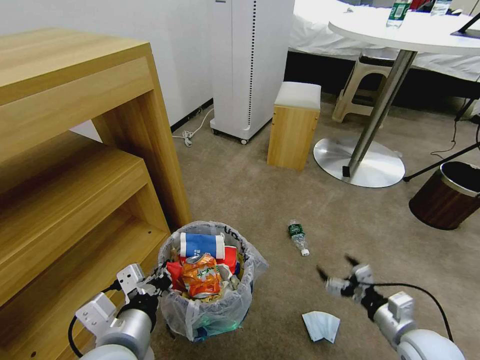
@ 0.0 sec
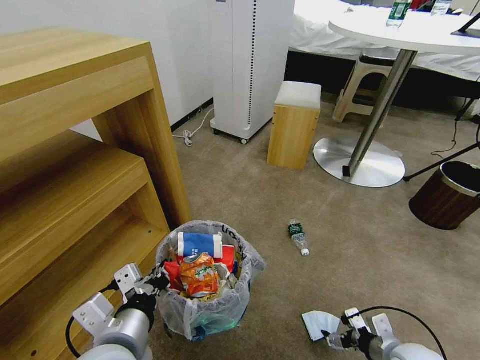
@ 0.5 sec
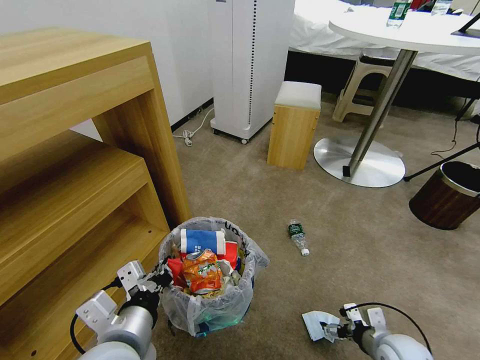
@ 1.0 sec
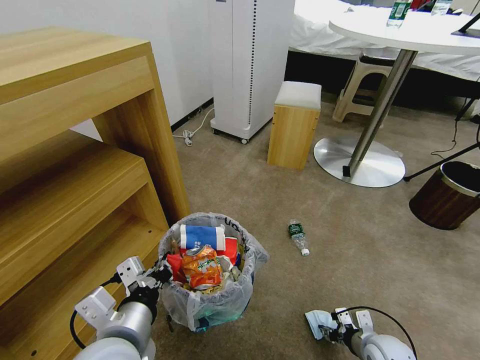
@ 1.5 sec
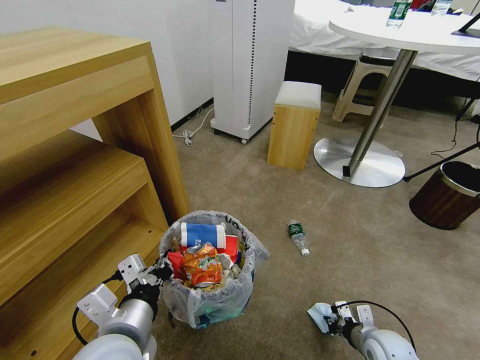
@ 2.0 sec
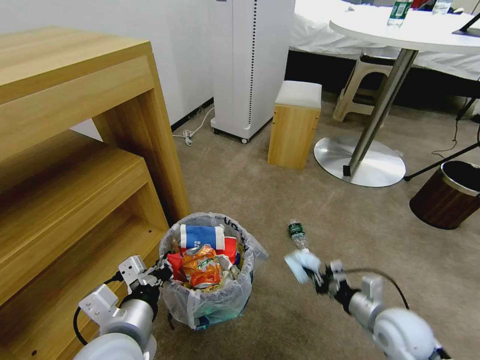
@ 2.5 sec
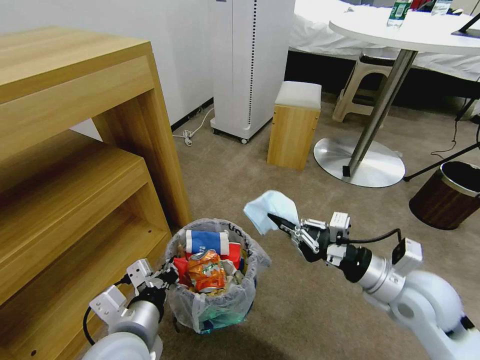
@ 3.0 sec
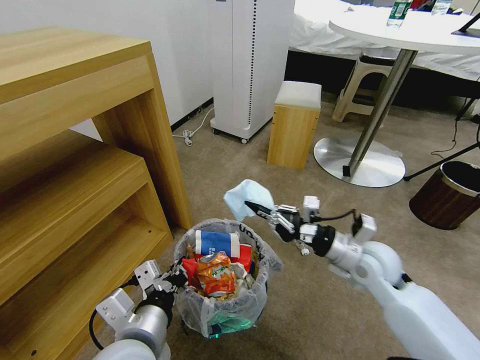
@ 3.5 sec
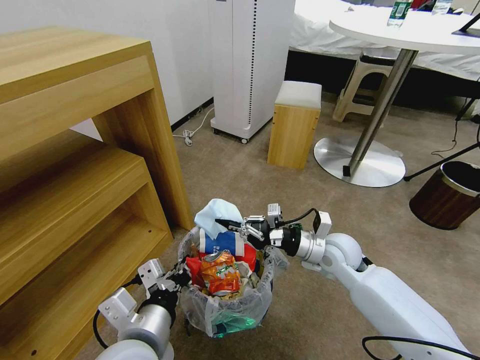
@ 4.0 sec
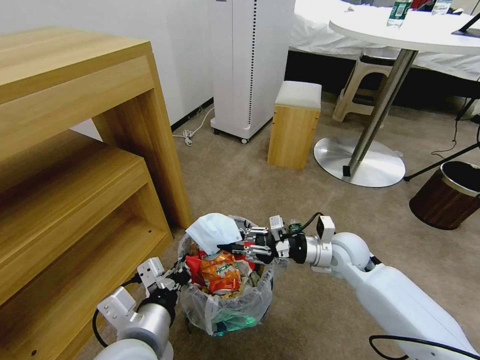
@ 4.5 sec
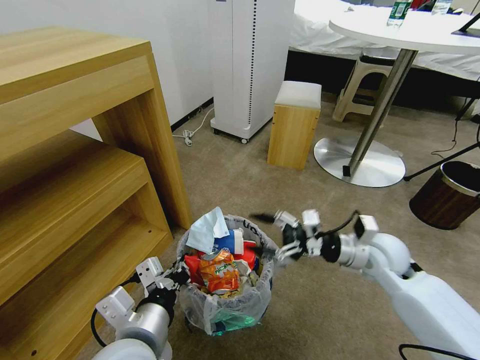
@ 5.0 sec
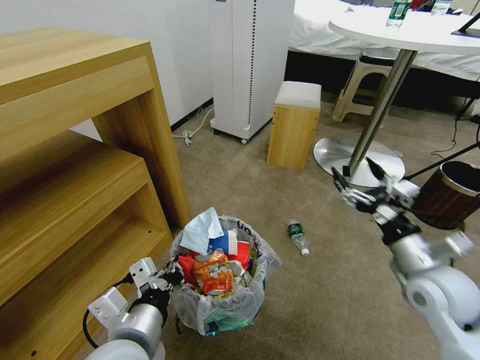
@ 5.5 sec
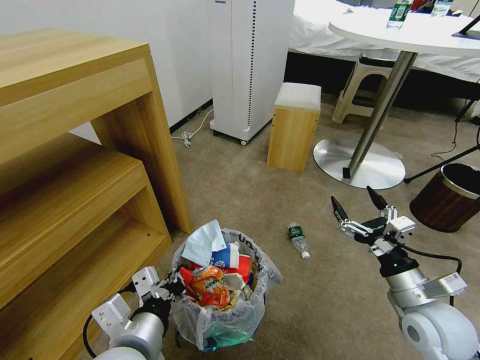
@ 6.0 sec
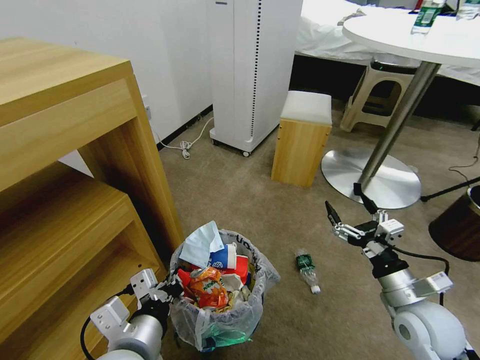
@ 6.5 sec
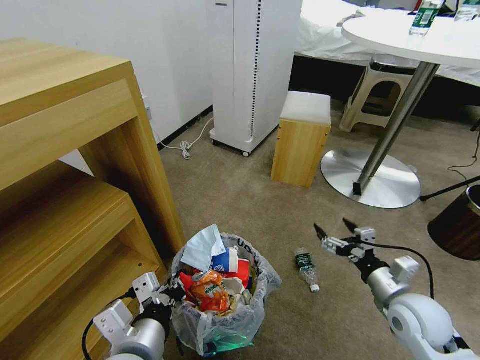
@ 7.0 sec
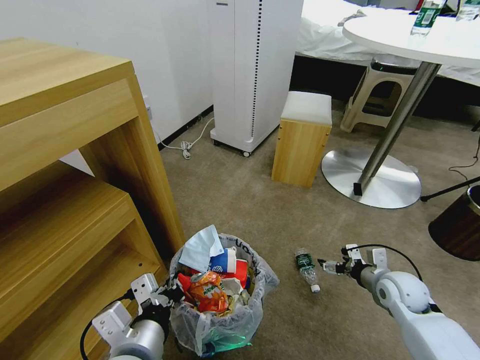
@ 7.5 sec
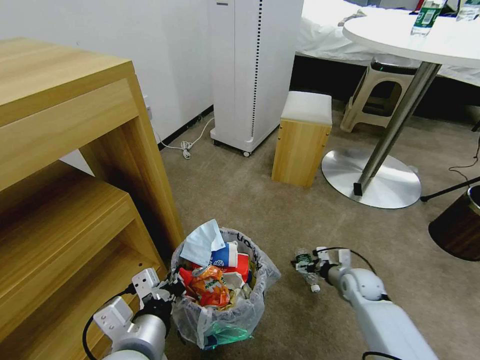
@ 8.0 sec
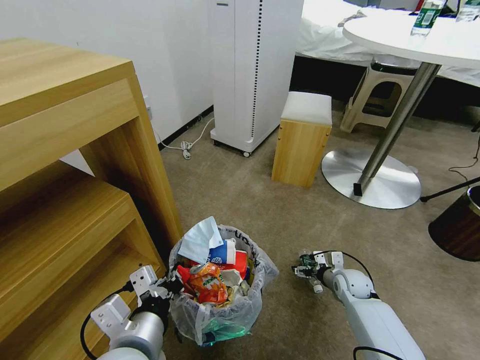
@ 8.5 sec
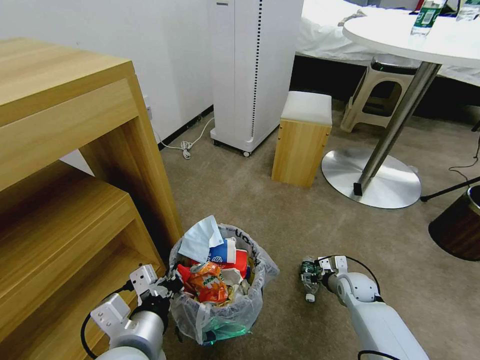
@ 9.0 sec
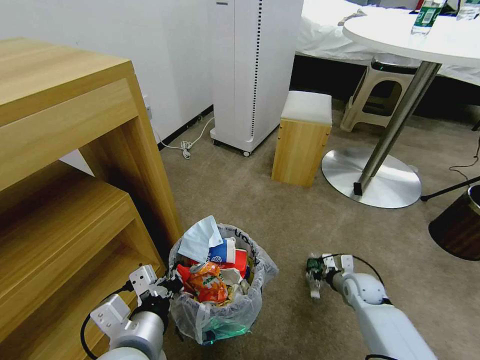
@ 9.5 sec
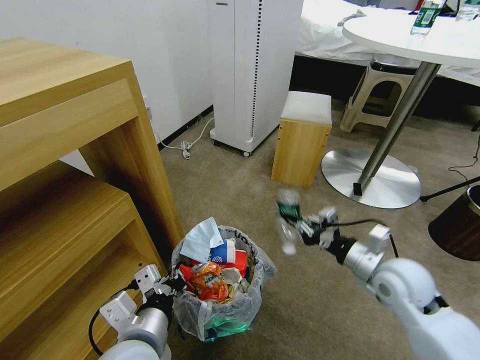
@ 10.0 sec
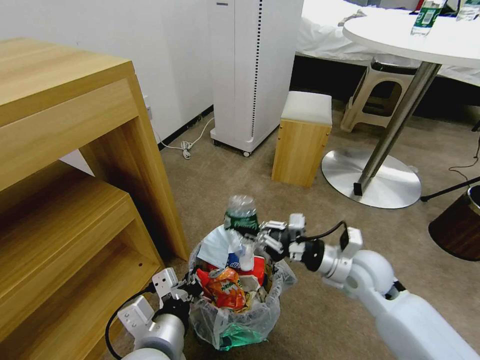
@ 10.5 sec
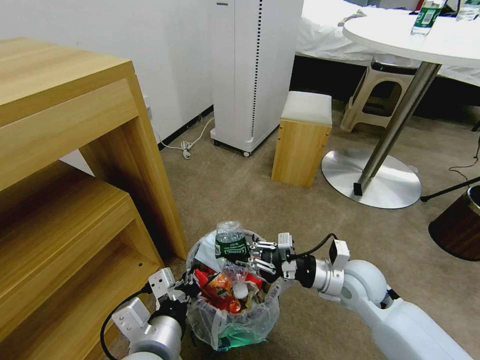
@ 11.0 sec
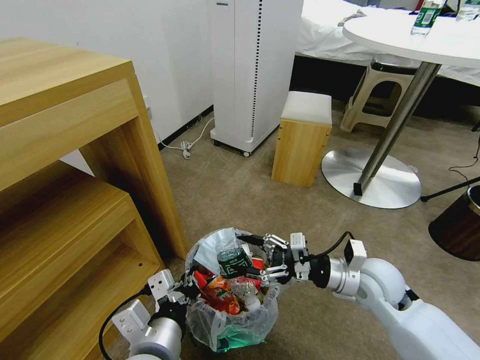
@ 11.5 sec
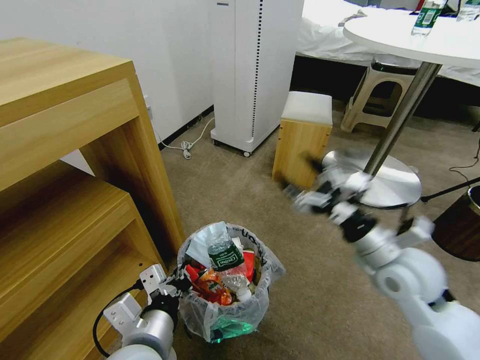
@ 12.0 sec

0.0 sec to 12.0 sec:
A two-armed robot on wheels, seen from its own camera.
Task of the whole recording: Pick up the trash bin and place the garbage on the floor into it.
0.0 sec to 2.0 sec: The right gripper heads downward, covering roughly 10 cm, and closes its fingers.
2.0 sec to 4.0 sec: The right gripper is displaced upward, forward and to the left by some 25 cm.
4.0 sec to 6.0 sec: The right gripper shifts some 20 cm backward and to the right, and opens.
6.0 sec to 8.0 sec: The right gripper moves downward and forward, approximately 25 cm.
8.0 sec to 10.0 sec: The right gripper moves upward, roughly 20 cm, and closes.
10.0 sec to 12.0 sec: The right gripper goes approximately 5 cm upward, and opens its fingers.

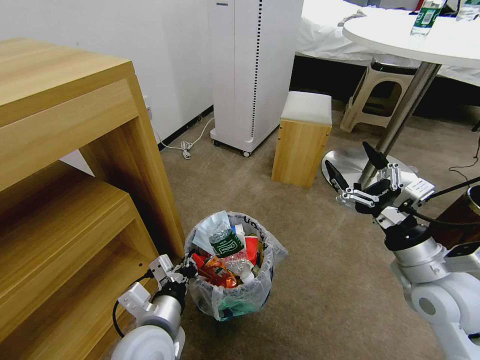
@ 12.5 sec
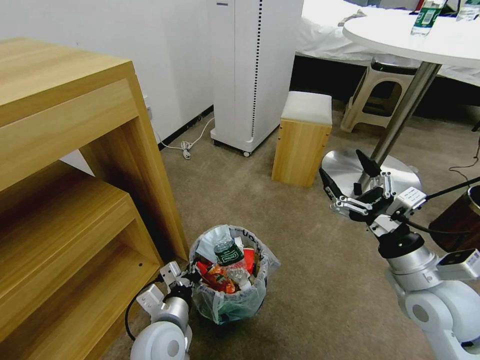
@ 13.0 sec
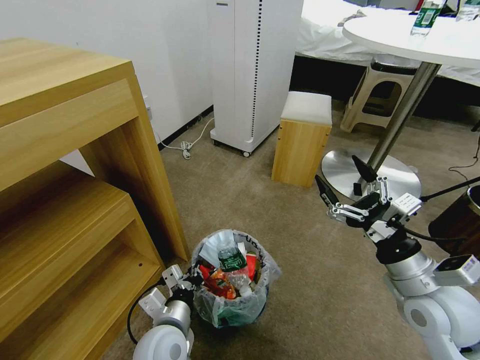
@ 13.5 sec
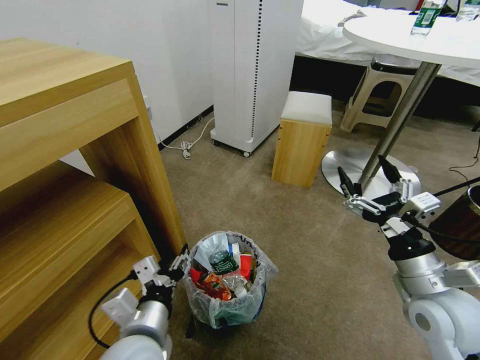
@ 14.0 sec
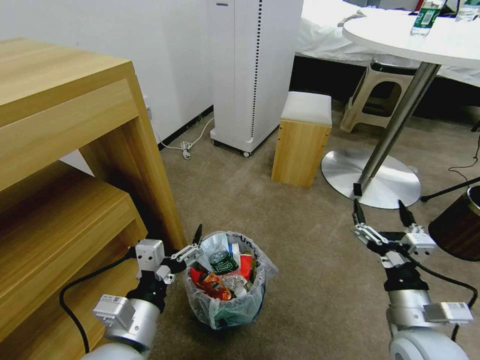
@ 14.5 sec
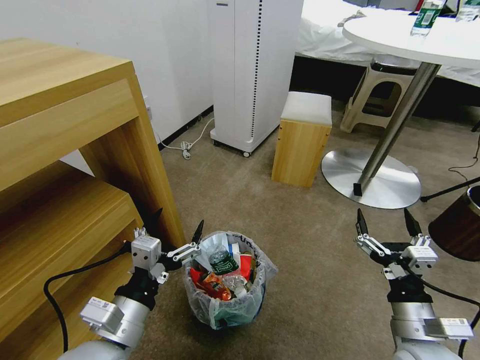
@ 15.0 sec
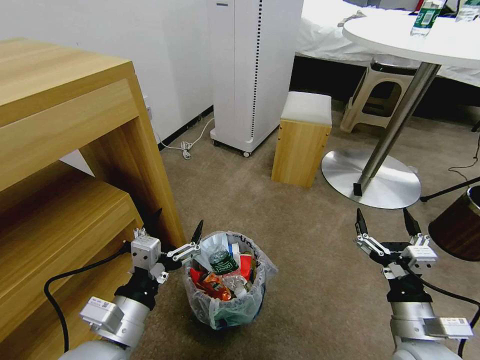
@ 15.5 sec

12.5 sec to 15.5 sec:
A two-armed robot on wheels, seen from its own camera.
Task of the whole recording: Pick up the trash bin and place the garbage on the floor into it.
12.5 sec to 14.0 sec: The left gripper opens.
14.0 sec to 15.5 sec: The right gripper heads downward and backward, covering about 10 cm; the left gripper heads upward, covering about 10 cm.

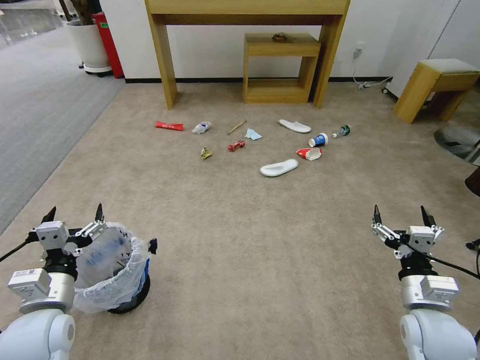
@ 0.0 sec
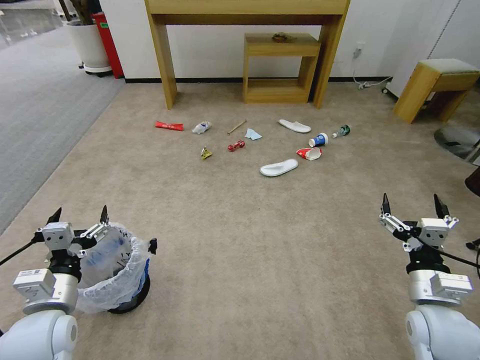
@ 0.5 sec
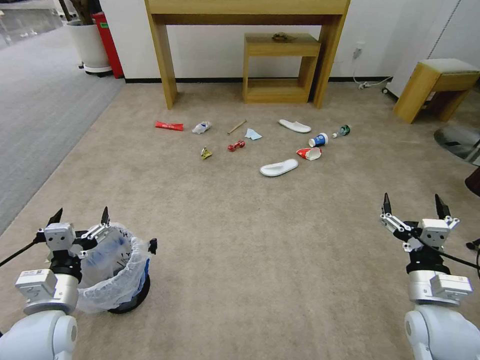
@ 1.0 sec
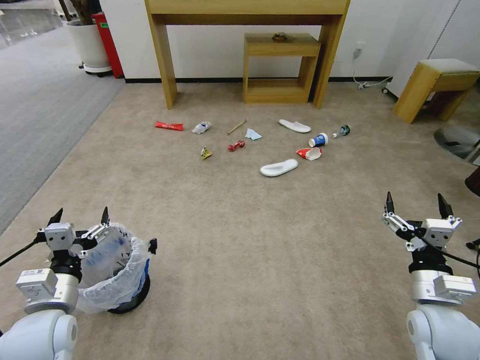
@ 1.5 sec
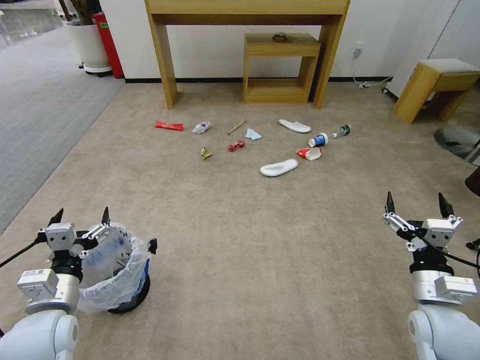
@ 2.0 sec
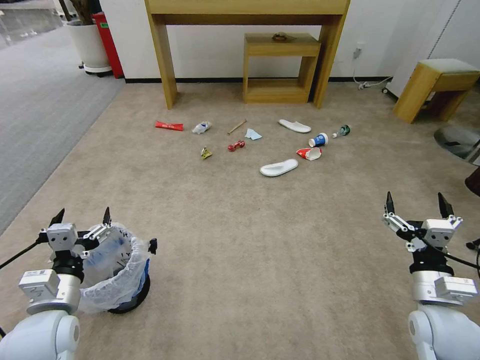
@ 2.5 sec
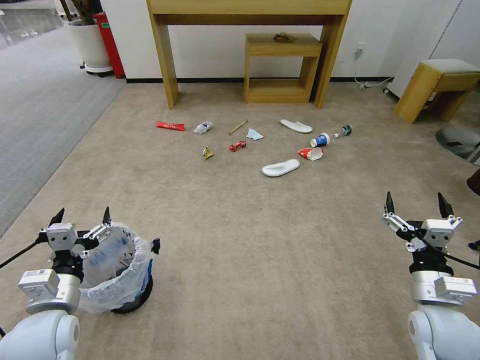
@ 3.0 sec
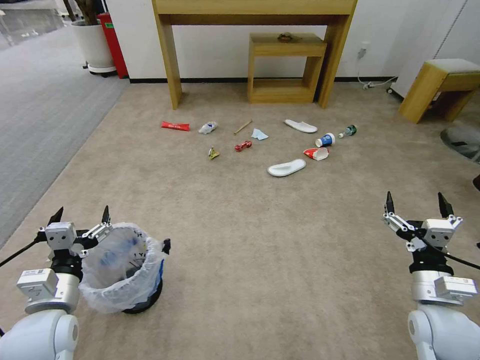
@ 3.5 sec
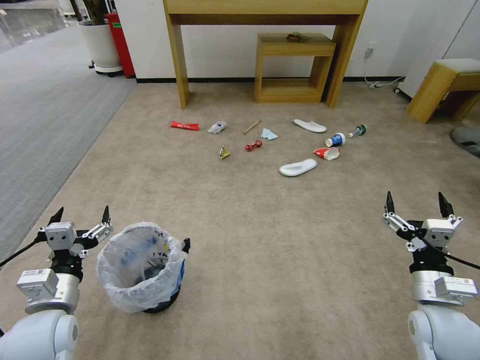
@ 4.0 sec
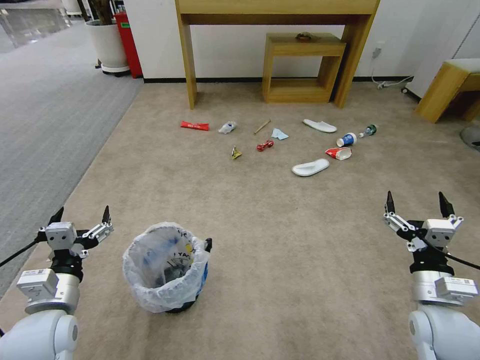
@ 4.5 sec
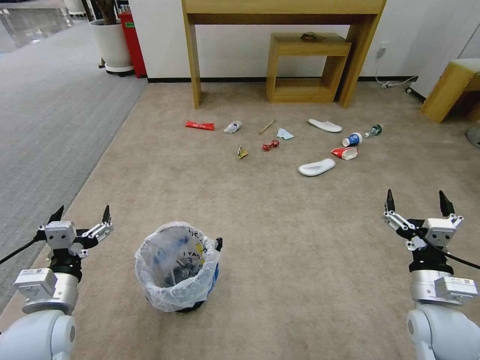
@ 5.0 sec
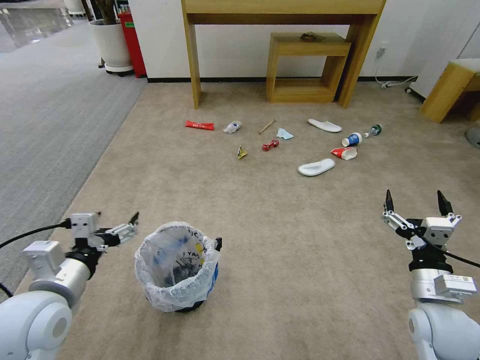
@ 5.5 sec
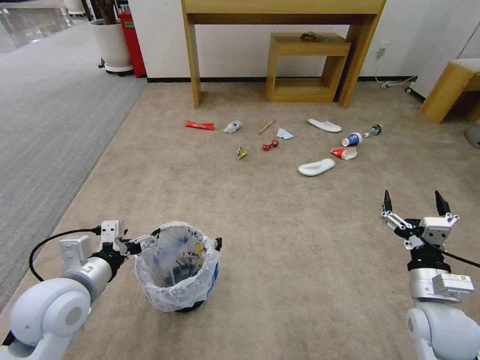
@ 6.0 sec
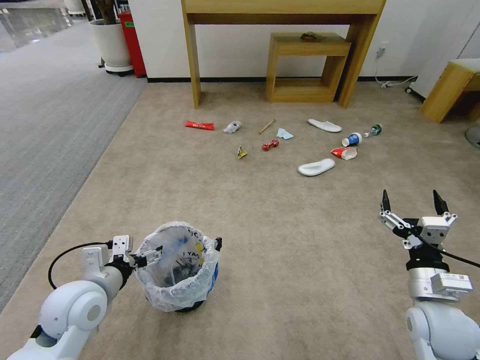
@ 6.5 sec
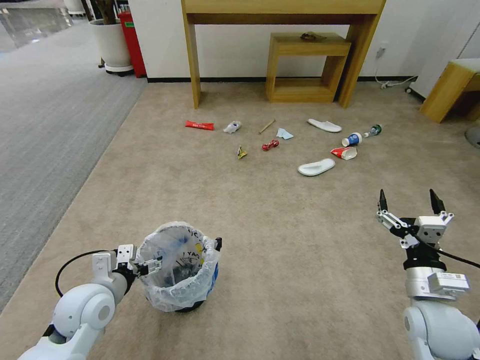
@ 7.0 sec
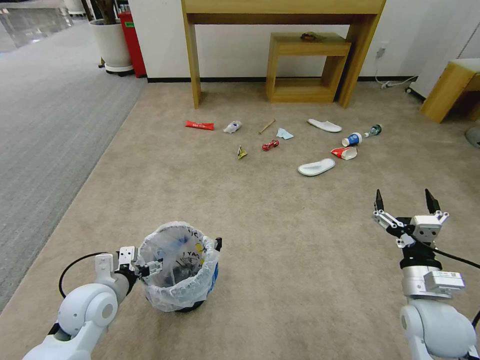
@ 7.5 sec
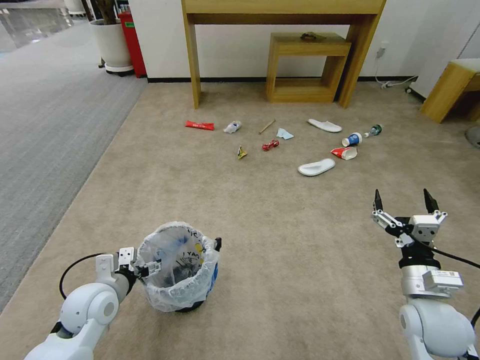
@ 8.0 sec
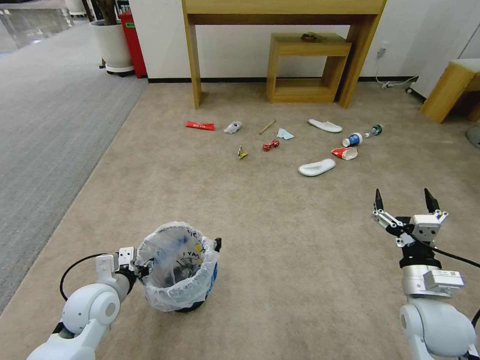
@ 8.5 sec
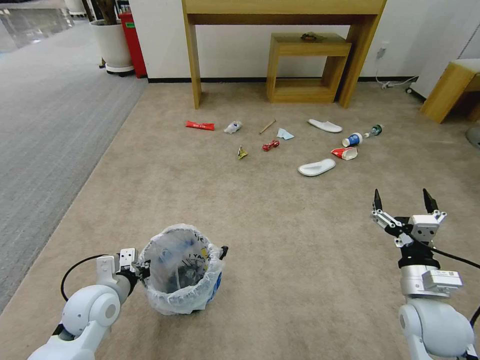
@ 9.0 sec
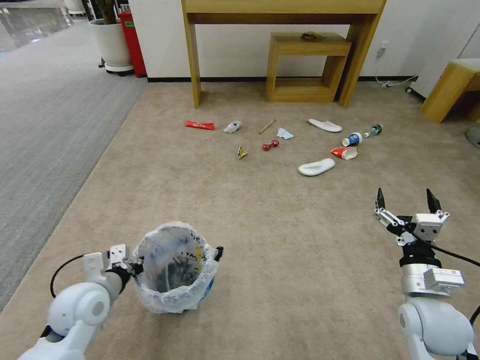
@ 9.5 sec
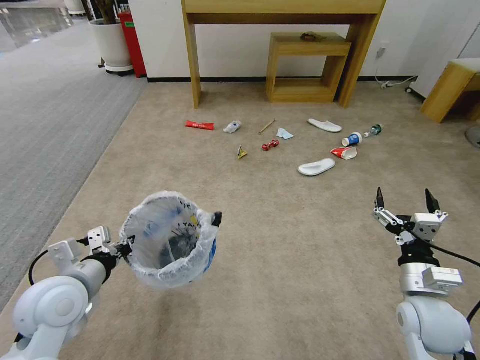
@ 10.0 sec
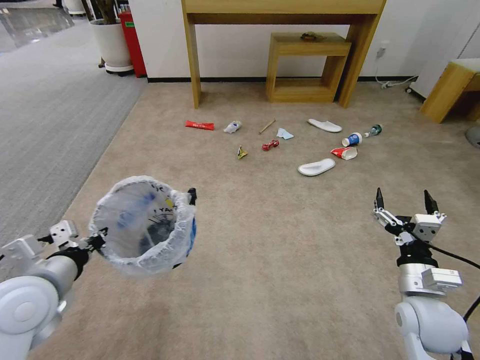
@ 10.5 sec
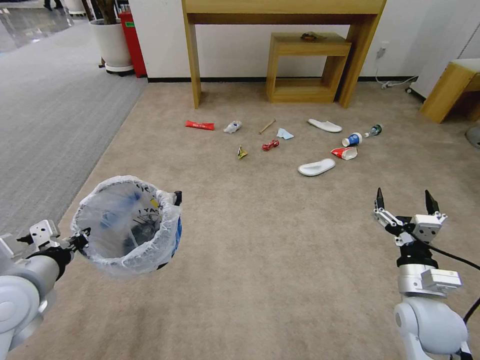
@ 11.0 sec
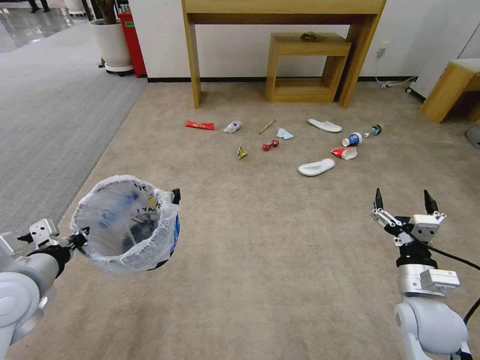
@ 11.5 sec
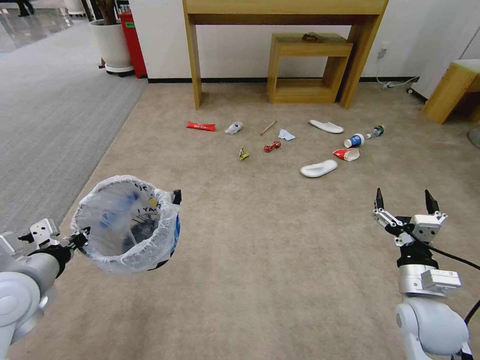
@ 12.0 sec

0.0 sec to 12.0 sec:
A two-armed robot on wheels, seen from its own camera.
Task of the whole recording: Pick up the trash bin and place the garbage on the floor into it.
2.0 sec to 4.0 sec: Both grippers stay about where they are.
4.0 sec to 6.0 sec: The left gripper goes about 5 cm upward.
6.0 sec to 8.0 sec: The left gripper travels downward by some 10 cm.
8.0 sec to 10.0 sec: The left gripper heads upward, covering roughly 10 cm, and closes up.
10.0 sec to 12.0 sec: The left gripper moves to the left, about 5 cm.
